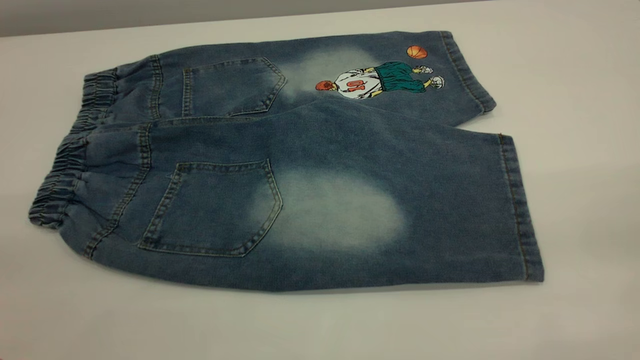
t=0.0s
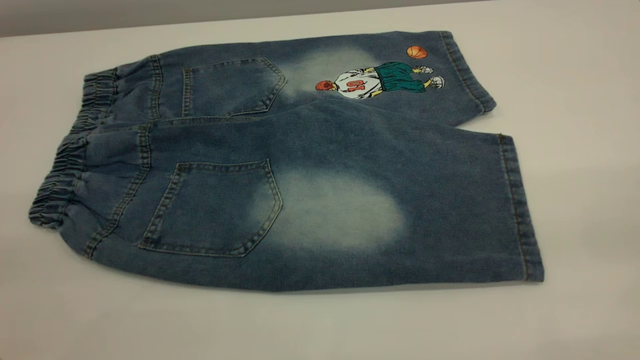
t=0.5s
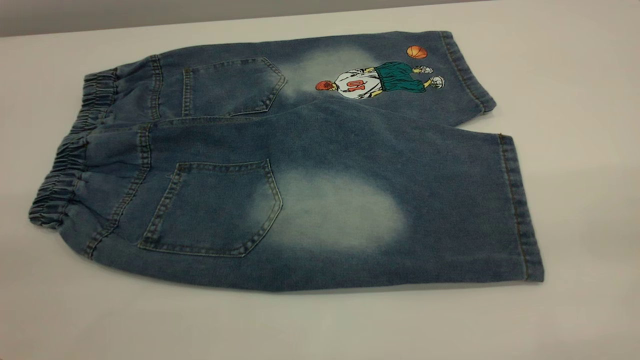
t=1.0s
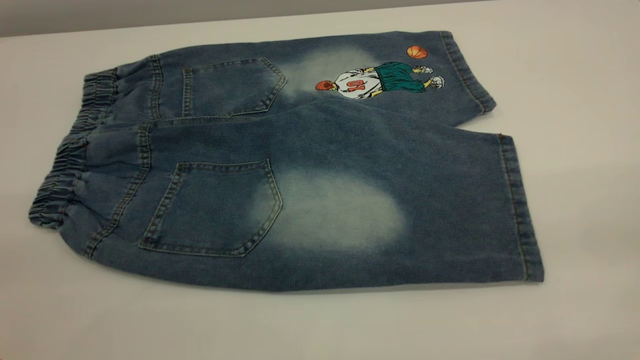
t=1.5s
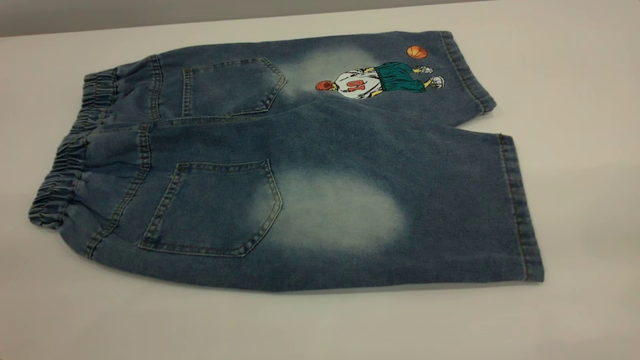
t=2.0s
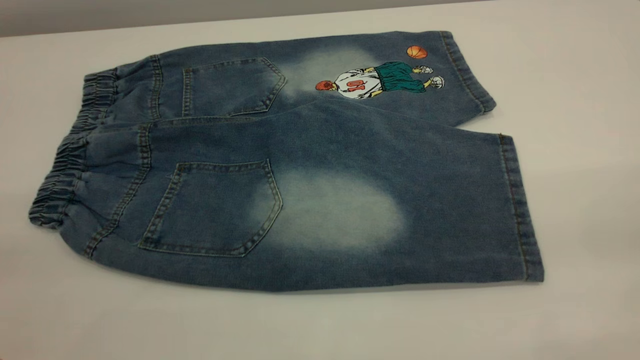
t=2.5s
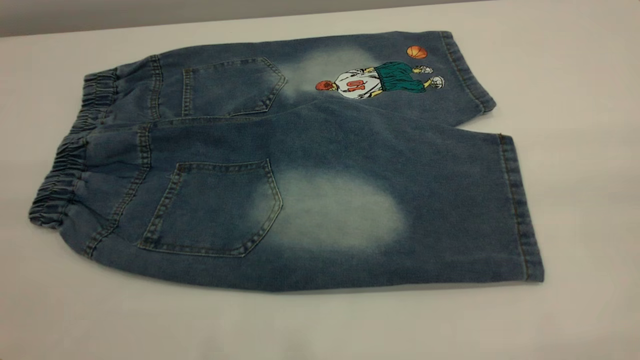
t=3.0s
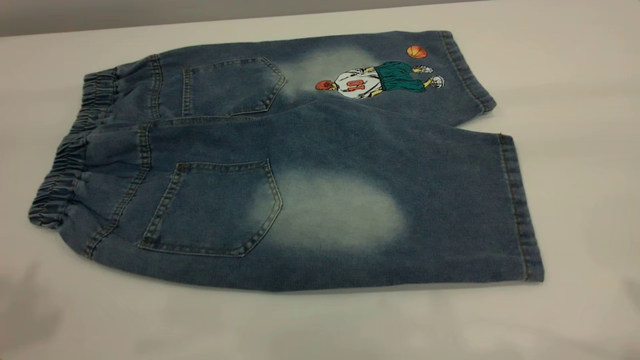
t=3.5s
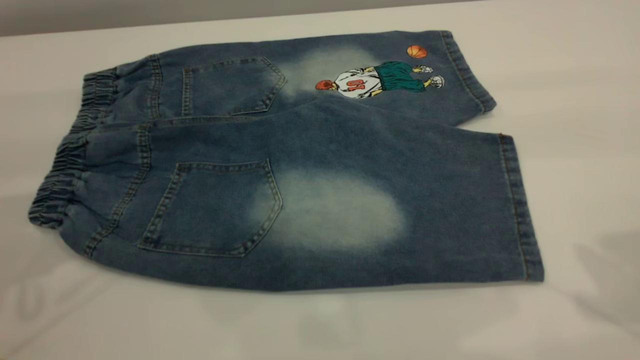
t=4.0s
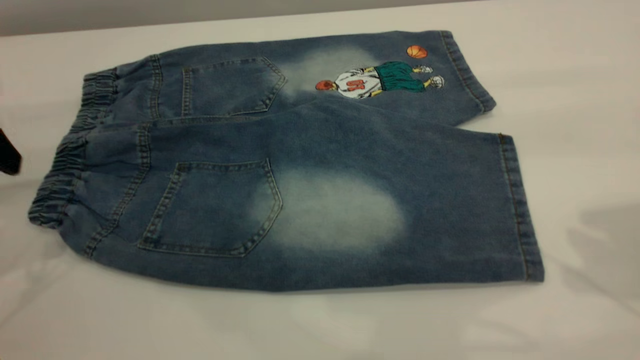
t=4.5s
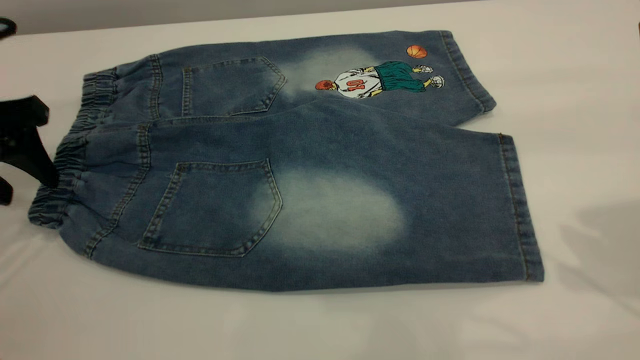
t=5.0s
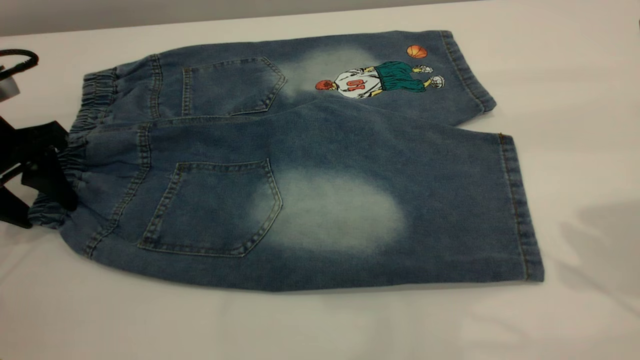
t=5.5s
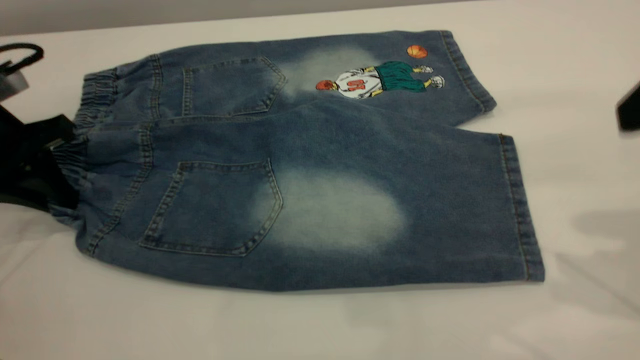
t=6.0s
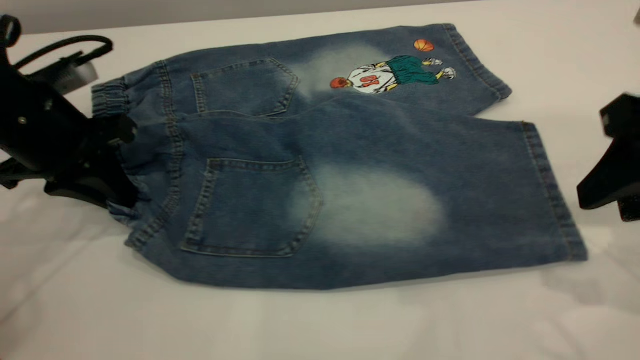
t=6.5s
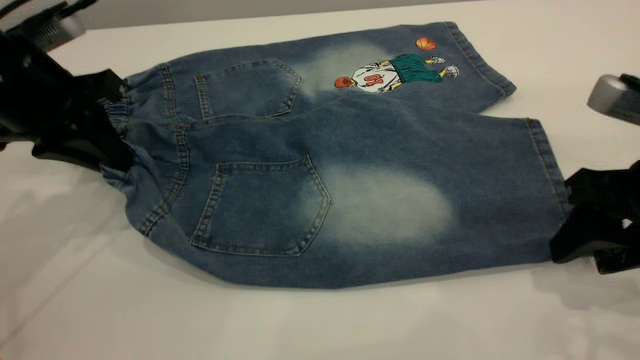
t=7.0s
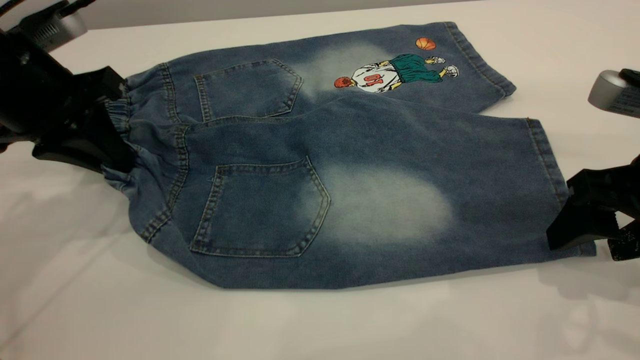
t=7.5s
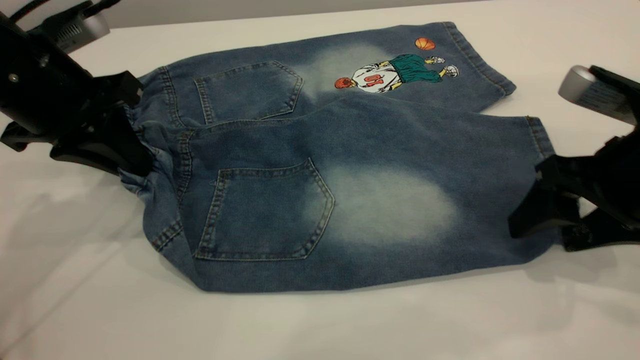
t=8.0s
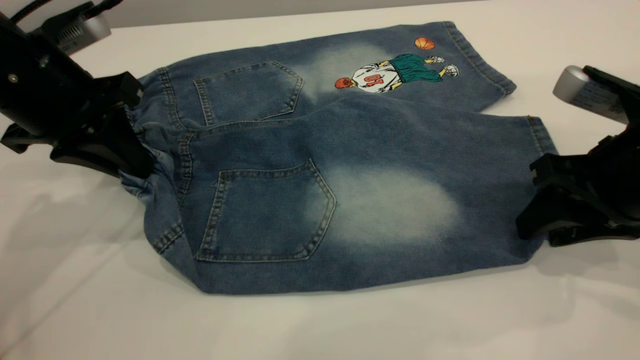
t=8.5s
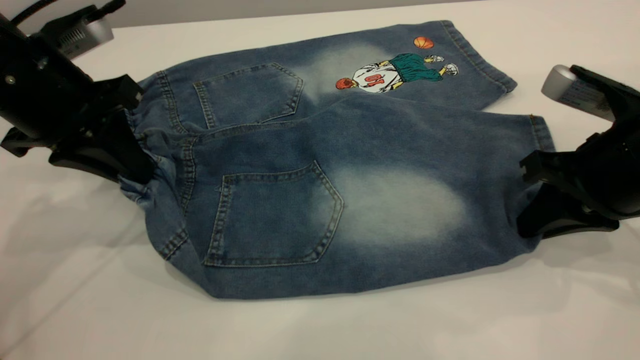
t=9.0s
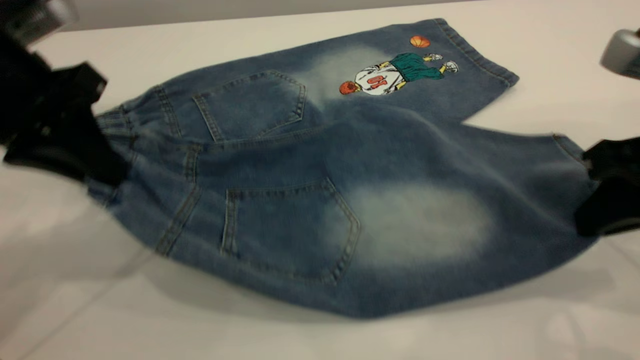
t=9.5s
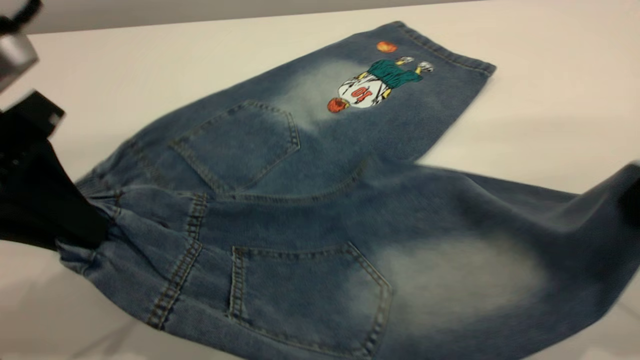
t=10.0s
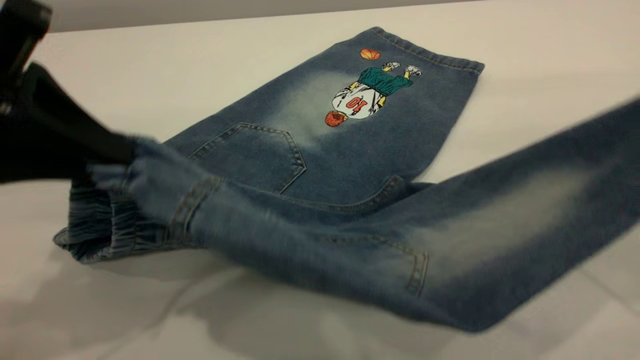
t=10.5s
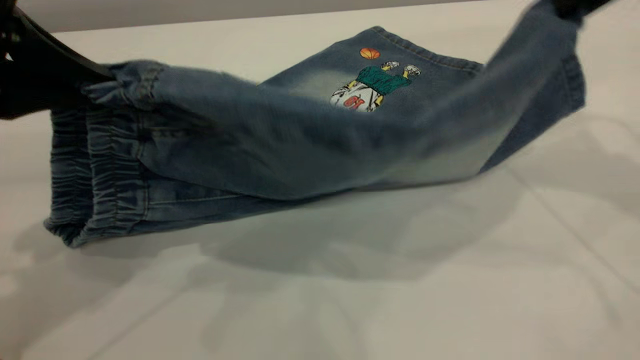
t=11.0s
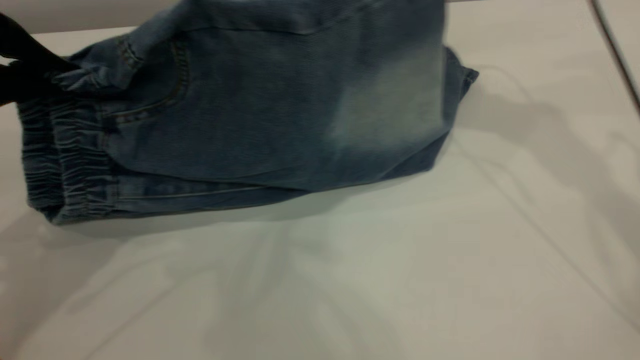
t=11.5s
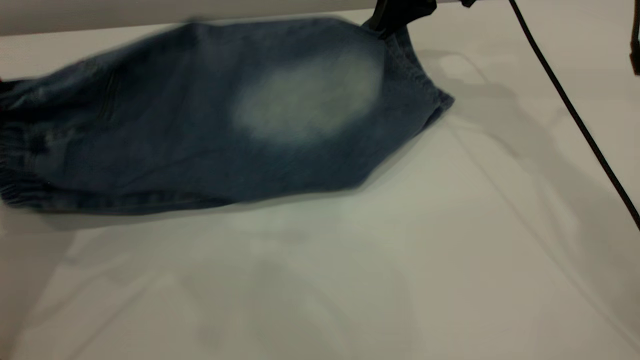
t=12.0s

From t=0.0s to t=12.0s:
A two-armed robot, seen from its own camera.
From t=0.0s to t=2.0s: Both grippers stay about where they are.
From t=4.0s to t=6.0s: The left gripper goes about 15 cm downward and forward, and closes up.
From t=6.0s to t=8.0s: The left gripper heads to the right, covering approximately 10 cm, while the right gripper travels downward by approximately 15 cm, and opens up.
From t=8.0s to t=10.0s: The right gripper is displaced upward and backward by roughly 15 cm, and closes, while the left gripper shifts approximately 10 cm backward.
From t=10.0s to t=12.0s: The right gripper is displaced forward and to the left by about 30 cm, while the left gripper moves to the left, approximately 5 cm.

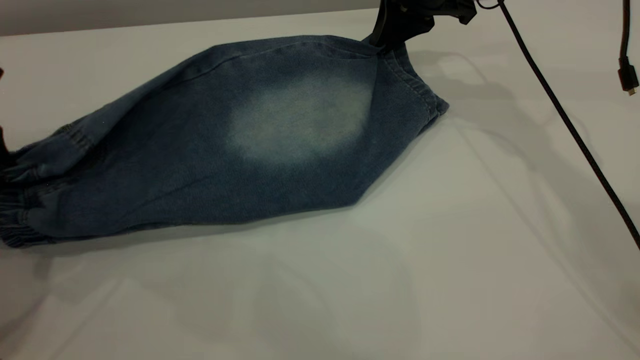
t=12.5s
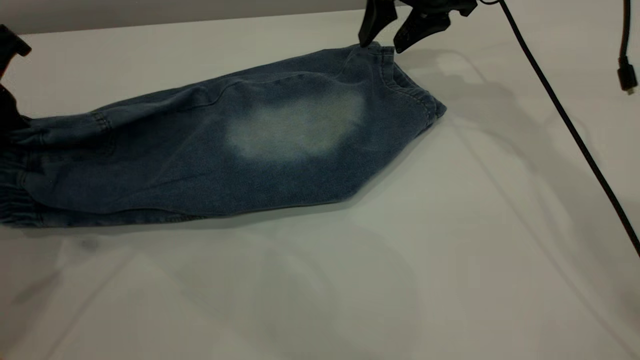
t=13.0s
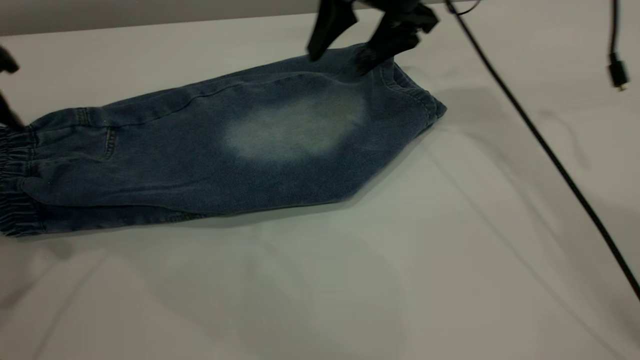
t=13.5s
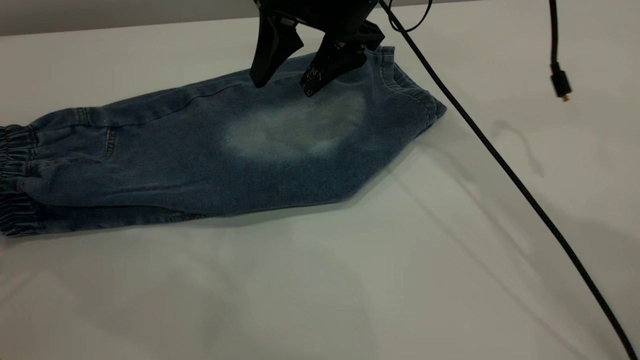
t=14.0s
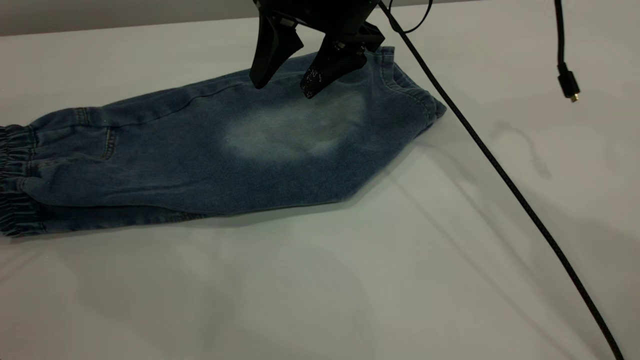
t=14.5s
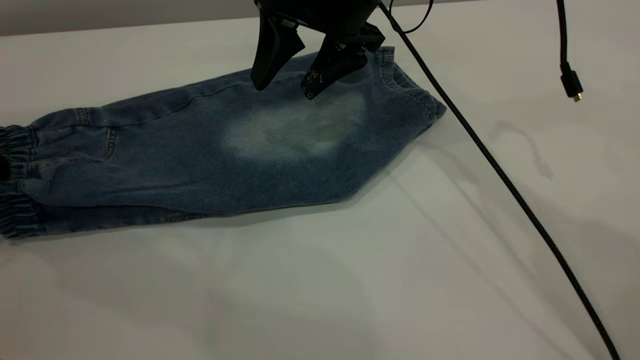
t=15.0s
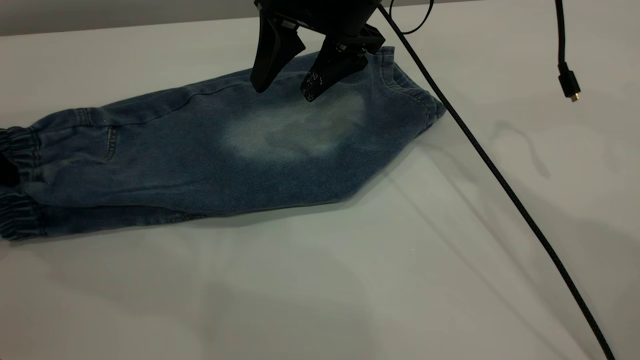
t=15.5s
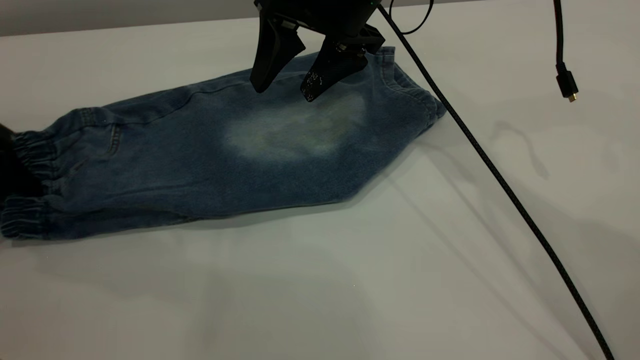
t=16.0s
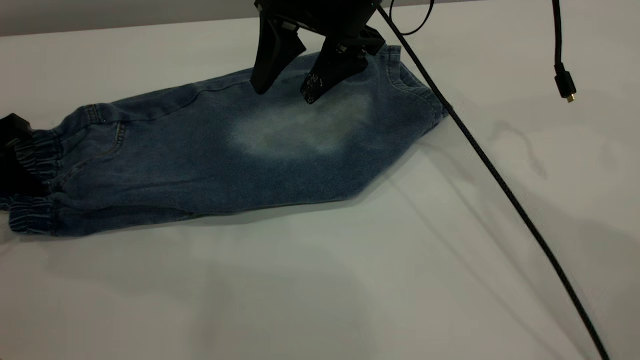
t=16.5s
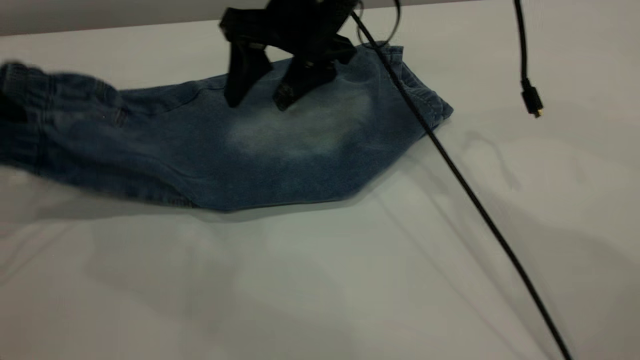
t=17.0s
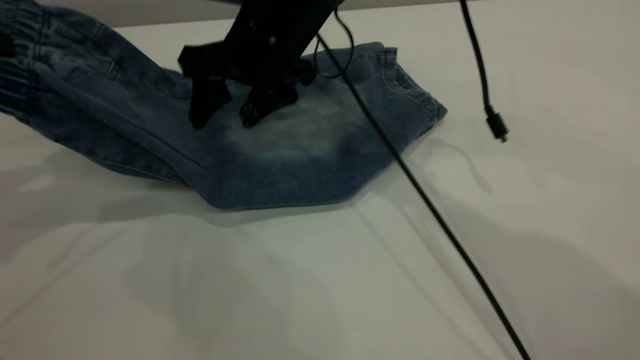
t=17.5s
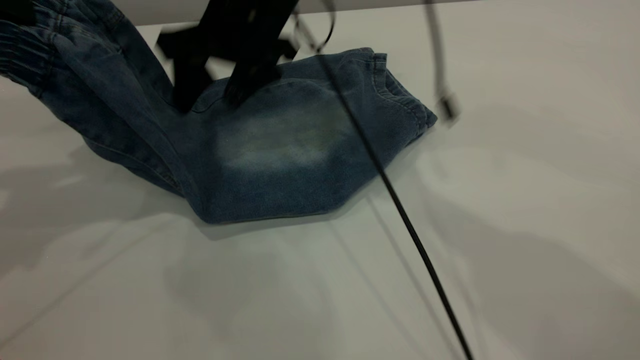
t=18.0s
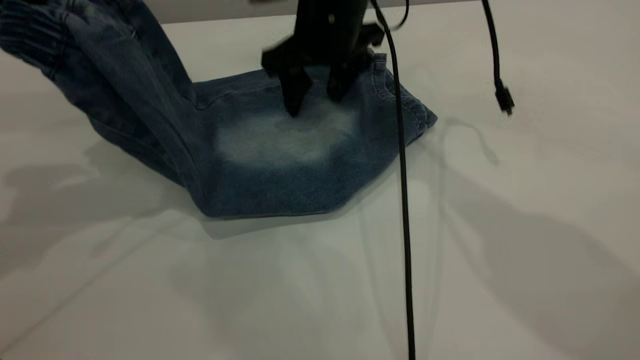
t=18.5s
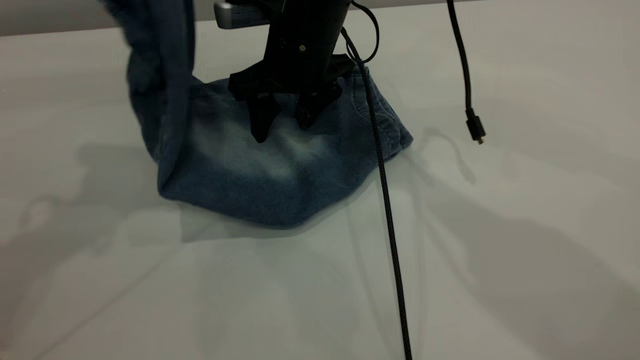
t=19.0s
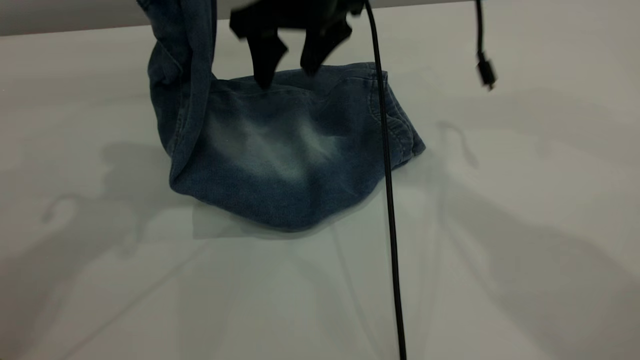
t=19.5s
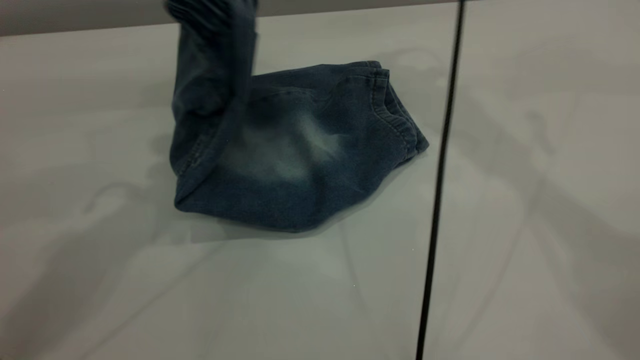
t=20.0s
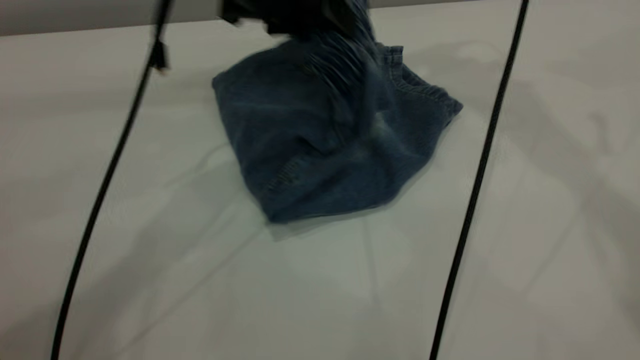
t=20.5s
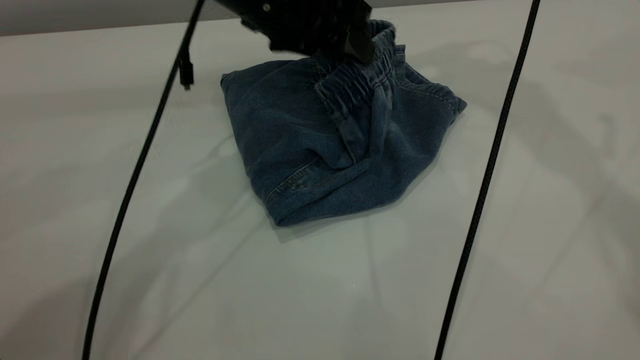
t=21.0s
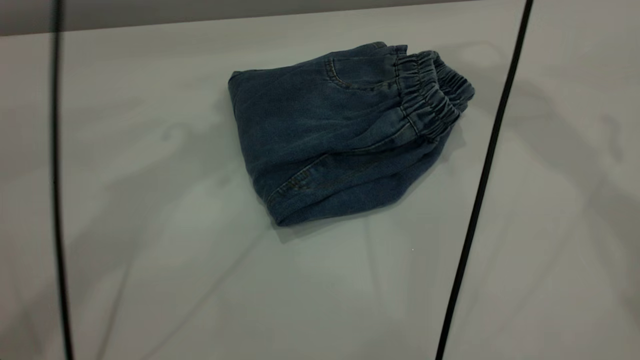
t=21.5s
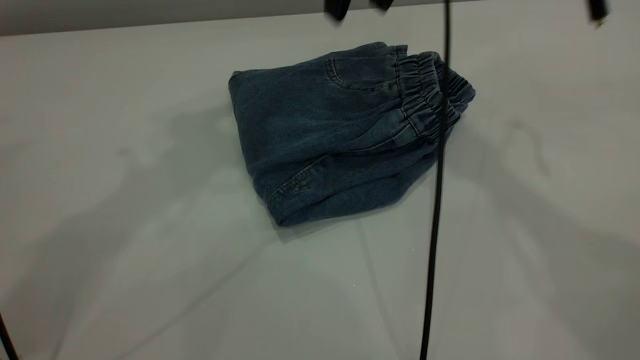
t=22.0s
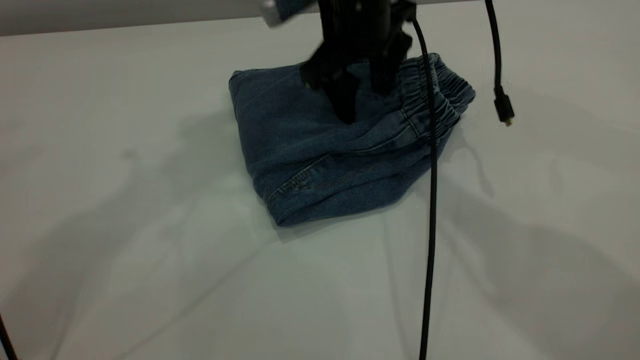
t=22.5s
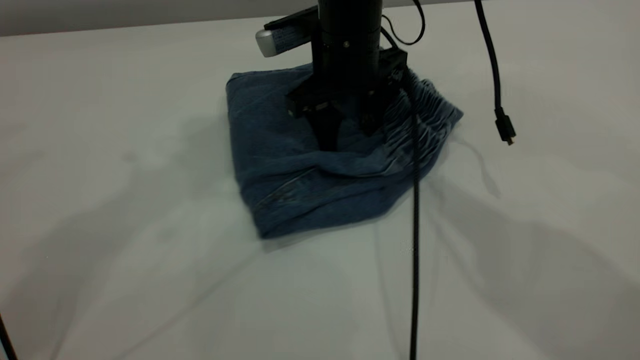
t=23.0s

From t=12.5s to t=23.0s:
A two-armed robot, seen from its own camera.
Step, from t=14.5s to t=21.5s: Fold the pants from left to right.
From t=12.5s to t=14.5s: The left gripper heads to the left, covering about 10 cm, and opens up. Meanwhile the right gripper is displaced to the left and backward by about 10 cm, and opens.
From t=14.5s to t=16.5s: The left gripper travels downward by roughly 10 cm, and closes its fingers.
From t=16.5s to t=19.0s: The right gripper travels to the left and downward by about 10 cm. Meanwhile the left gripper heads upward and to the right, covering some 25 cm.
From t=19.0s to t=21.0s: The left gripper is displaced to the right, downward and forward by approximately 20 cm, and opens its fingers; the right gripper heads upward and to the right, covering roughly 30 cm.
From t=21.0s to t=23.0s: The left gripper heads upward, covering roughly 25 cm. The right gripper travels downward and to the left by some 30 cm.
